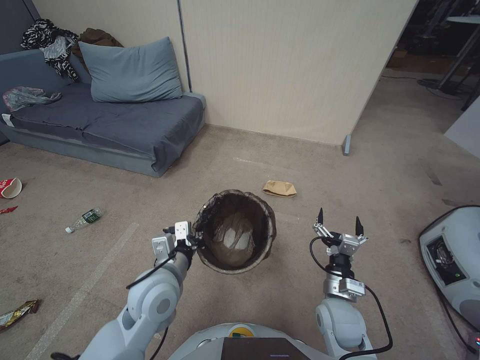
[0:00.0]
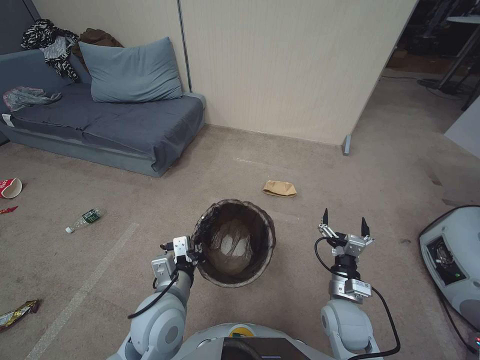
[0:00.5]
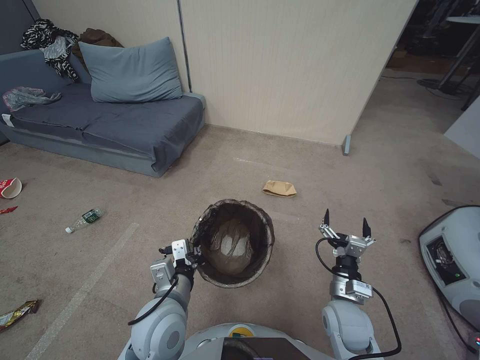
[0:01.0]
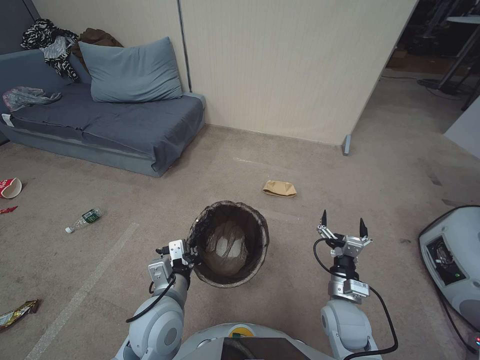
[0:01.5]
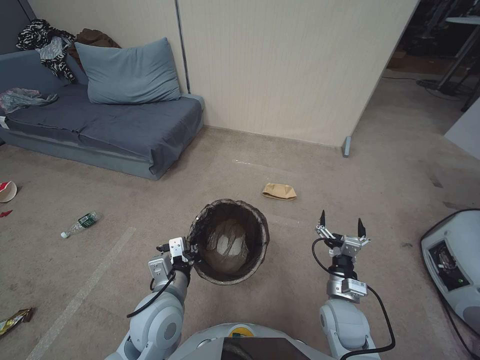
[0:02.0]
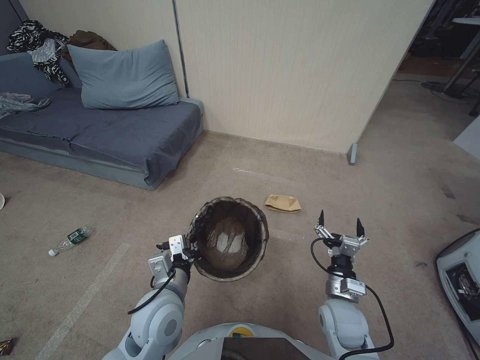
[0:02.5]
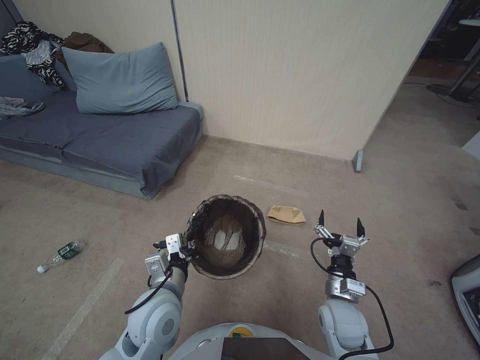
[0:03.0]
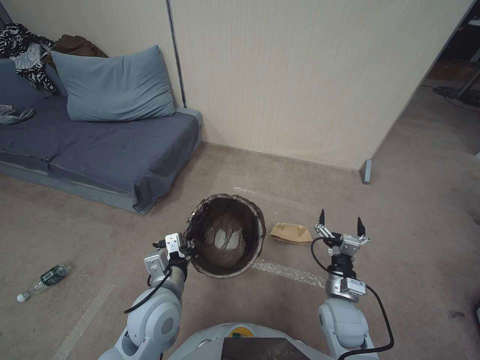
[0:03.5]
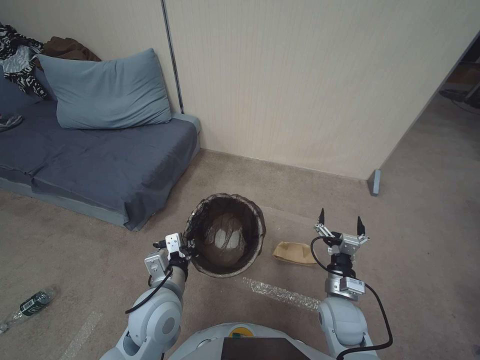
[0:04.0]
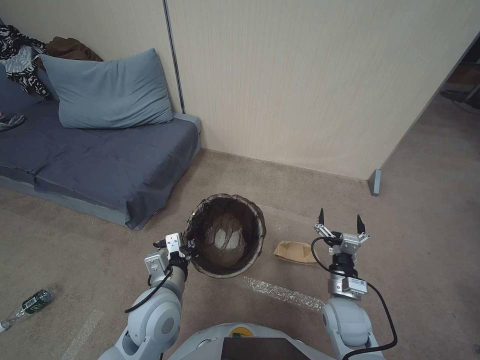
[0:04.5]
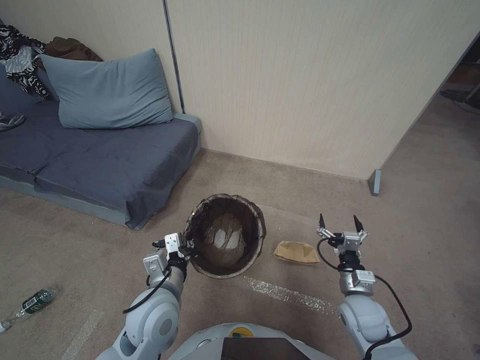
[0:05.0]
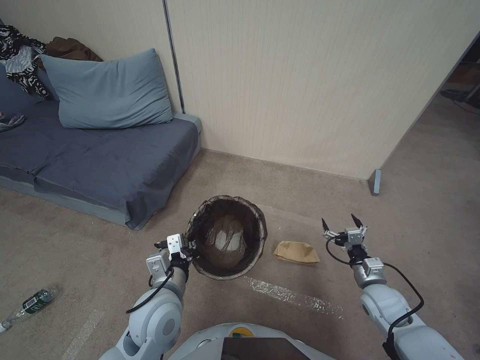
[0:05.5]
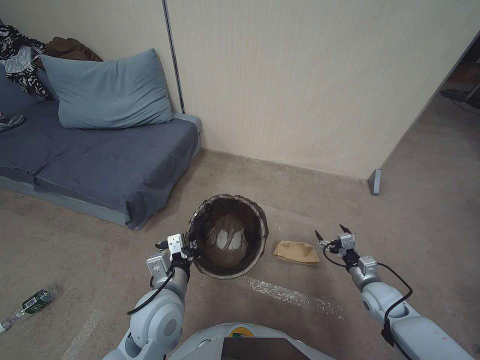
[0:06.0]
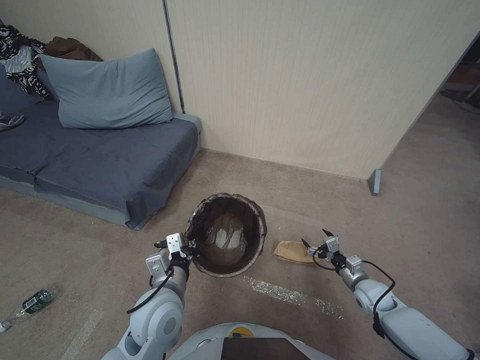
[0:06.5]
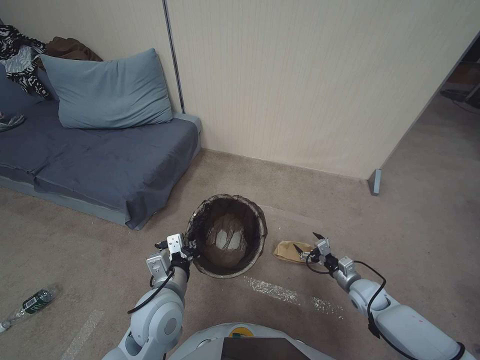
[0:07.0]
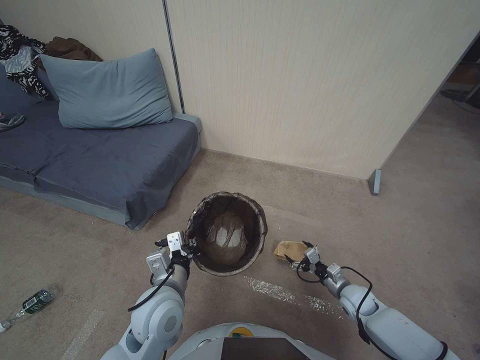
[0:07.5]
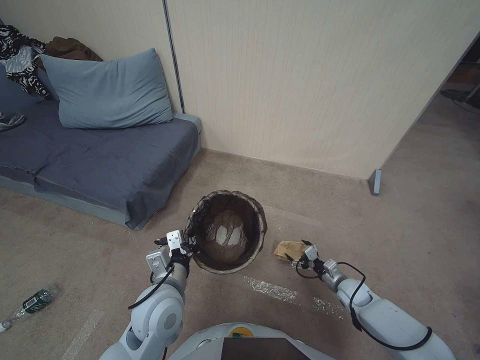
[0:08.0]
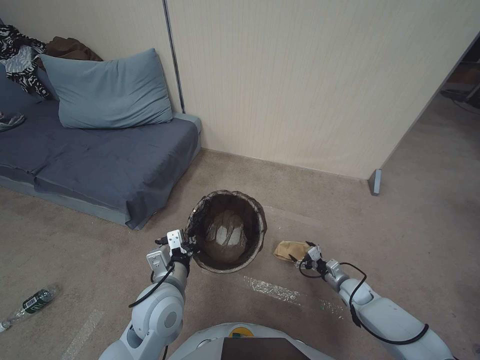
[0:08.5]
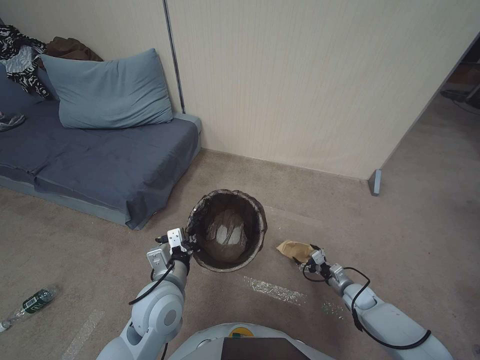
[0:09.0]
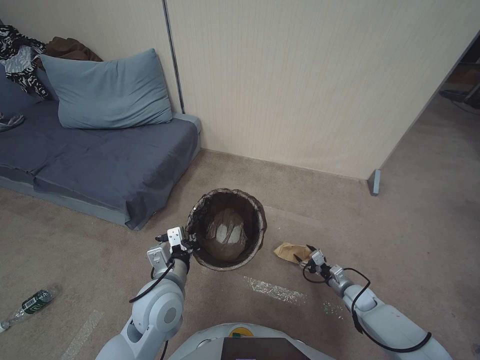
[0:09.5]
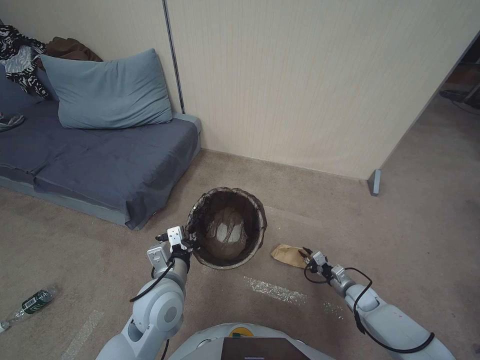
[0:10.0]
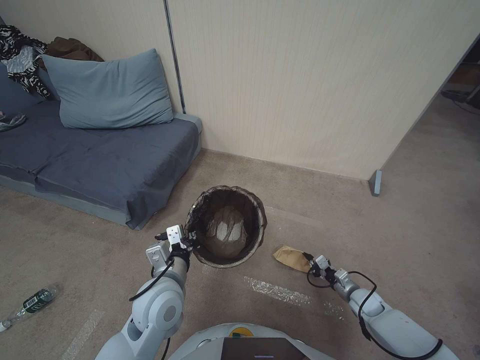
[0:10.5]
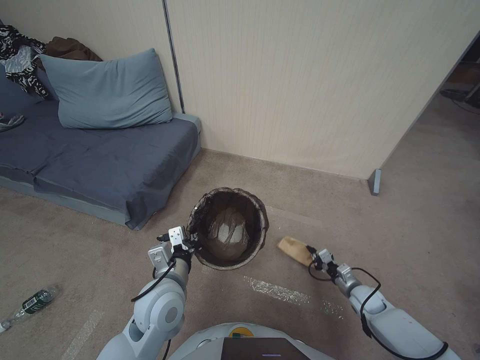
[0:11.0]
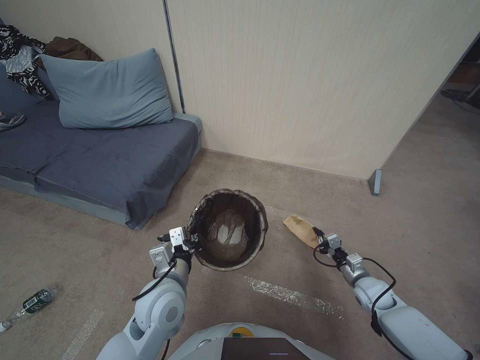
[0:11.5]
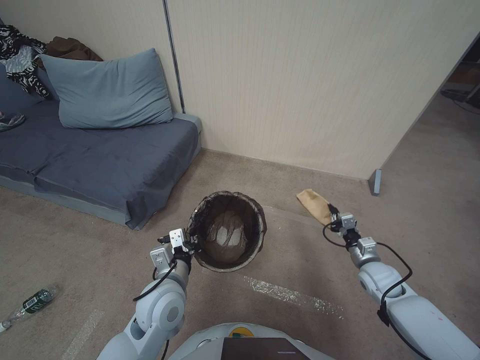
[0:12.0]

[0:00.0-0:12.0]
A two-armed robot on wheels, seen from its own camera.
Task of the whole recording: Pick up the trash bin, then pick up the garbage from the floor and place it into the trash bin.
0:00.0 to 0:02.0: The left gripper is displaced backward by about 10 cm.
0:04.0 to 0:06.0: The right gripper travels to the right by some 15 cm.
0:06.0 to 0:08.0: The right gripper goes some 10 cm downward.
0:08.0 to 0:10.0: The right gripper changes place by some 5 cm, and closes its fingers.
0:10.0 to 0:12.0: The right gripper shifts approximately 15 cm upward.

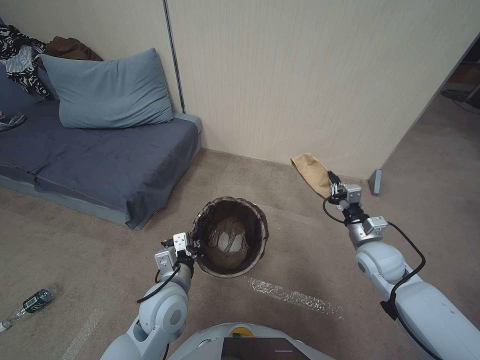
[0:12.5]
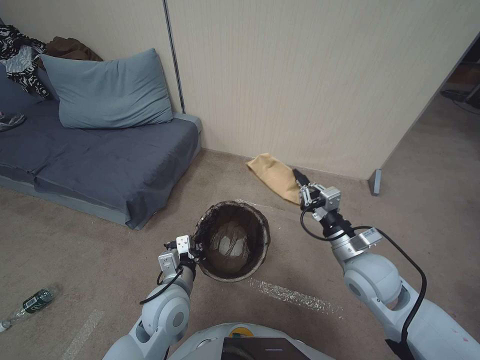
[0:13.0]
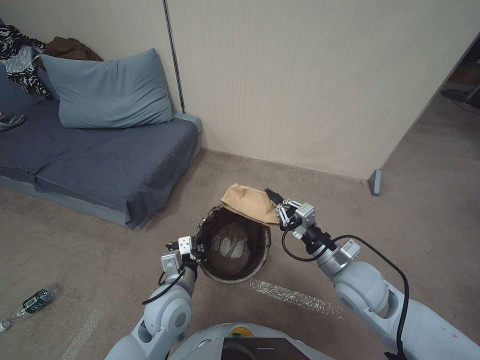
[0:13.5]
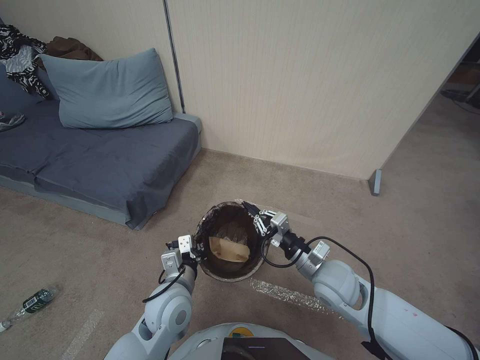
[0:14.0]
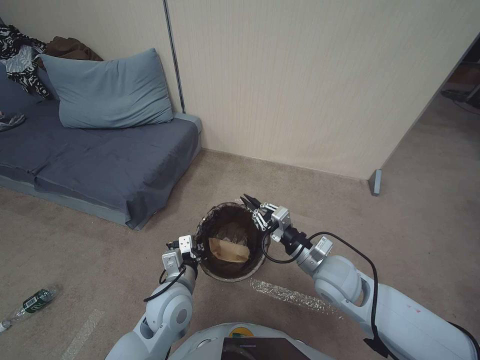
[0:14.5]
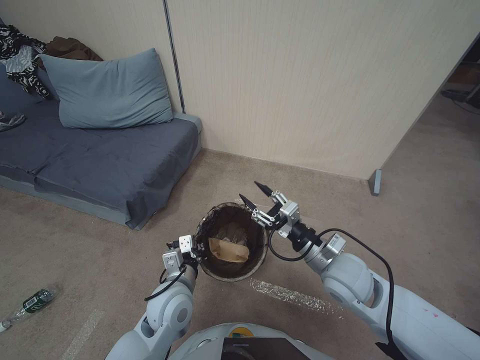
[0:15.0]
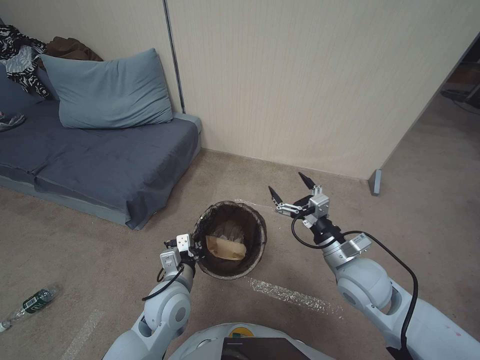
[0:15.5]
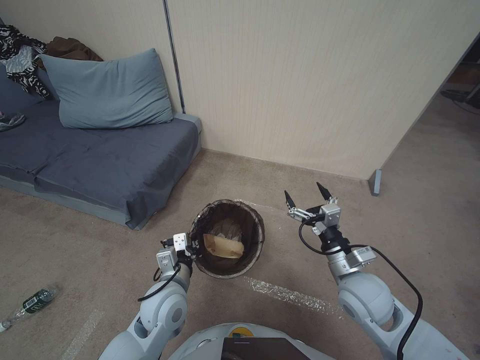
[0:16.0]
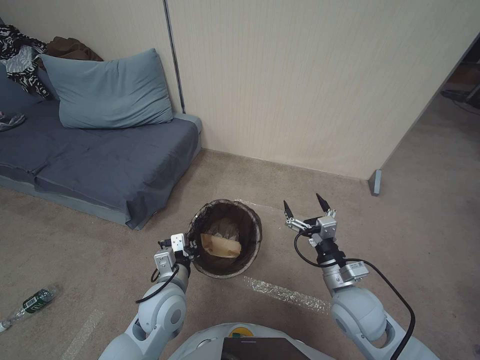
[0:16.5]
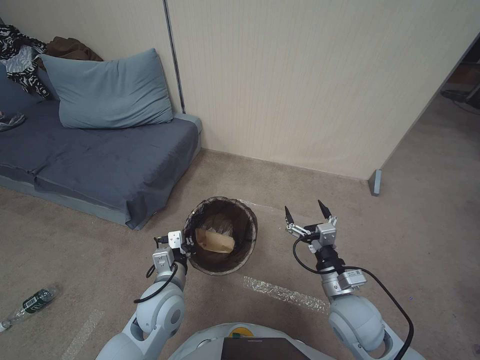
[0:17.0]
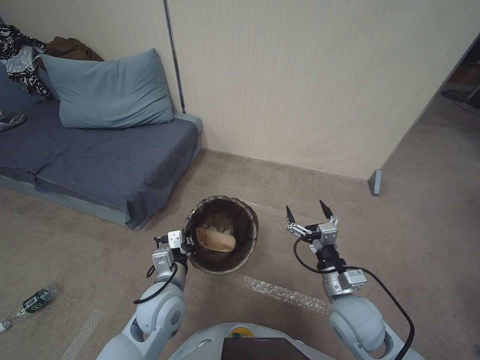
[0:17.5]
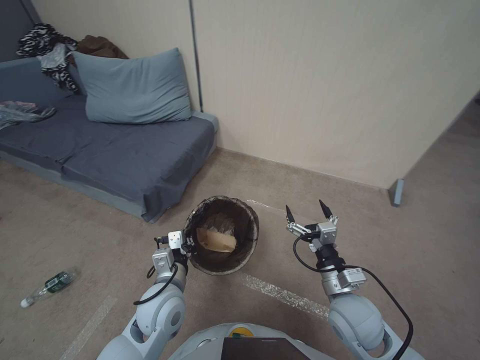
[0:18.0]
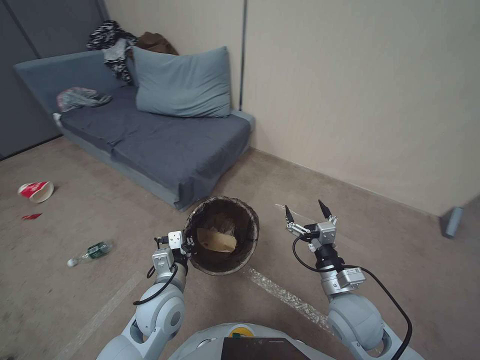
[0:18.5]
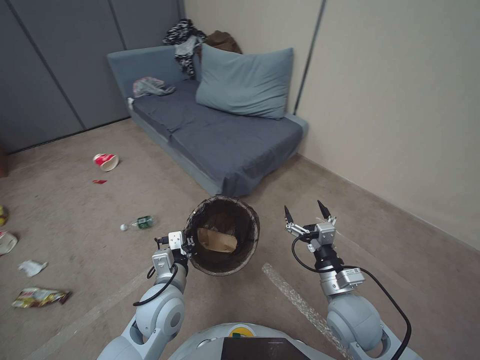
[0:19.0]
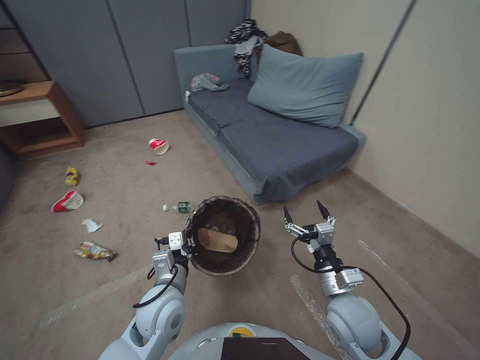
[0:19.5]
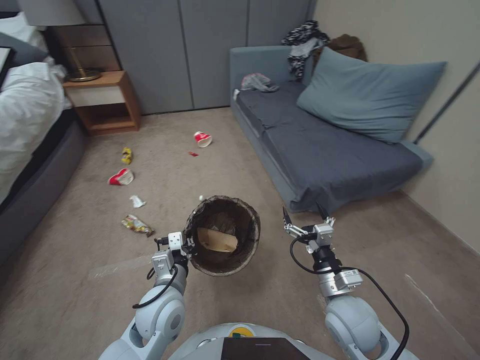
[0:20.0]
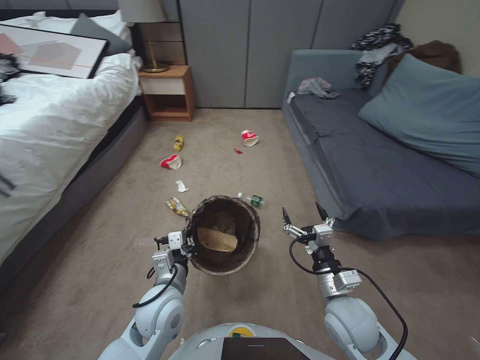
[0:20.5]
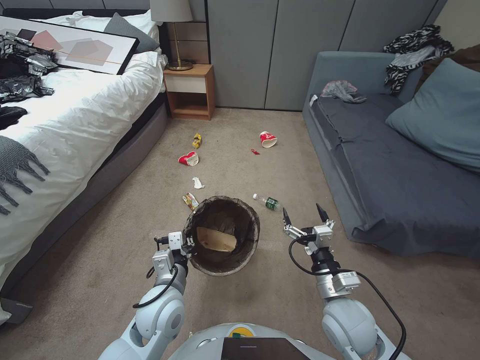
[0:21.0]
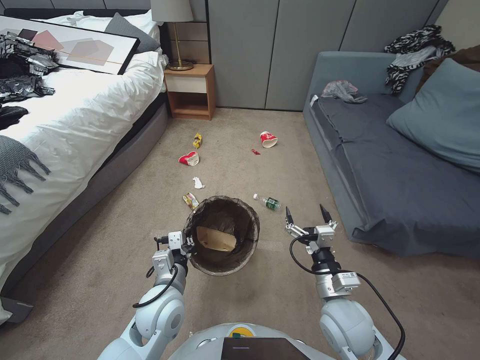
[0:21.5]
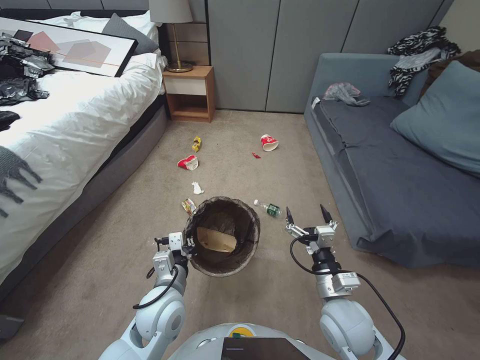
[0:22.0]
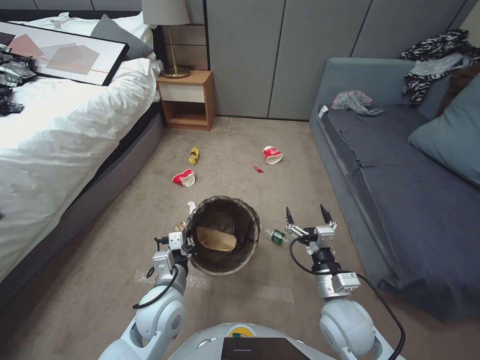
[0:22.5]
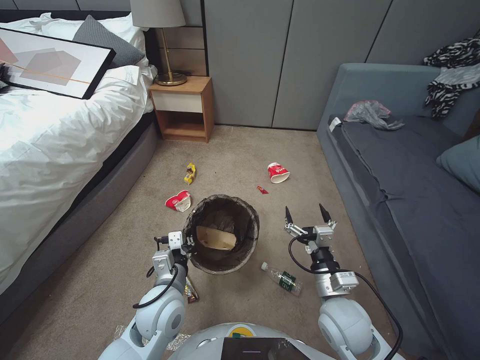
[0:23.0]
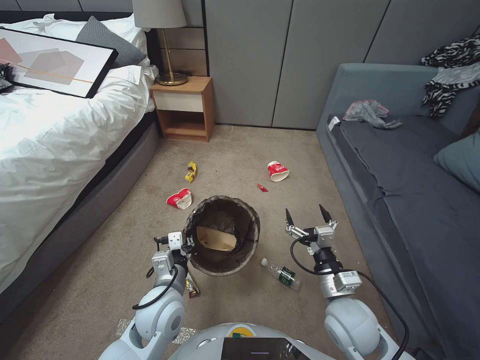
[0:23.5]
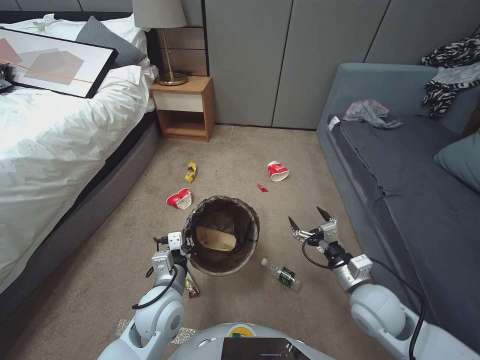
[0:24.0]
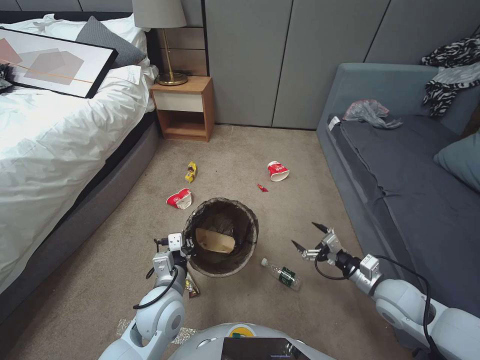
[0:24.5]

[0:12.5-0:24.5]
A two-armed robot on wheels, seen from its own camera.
Task of the whole recording: Pick up the trash bin, then pick up the garbage from the floor and place it into the trash bin.
0:12.5 to 0:14.5: The right gripper goes about 15 cm to the left.
0:14.5 to 0:16.5: The right gripper changes place by about 5 cm, and opens up.
0:22.5 to 0:24.5: The right gripper is displaced to the right by roughly 15 cm.

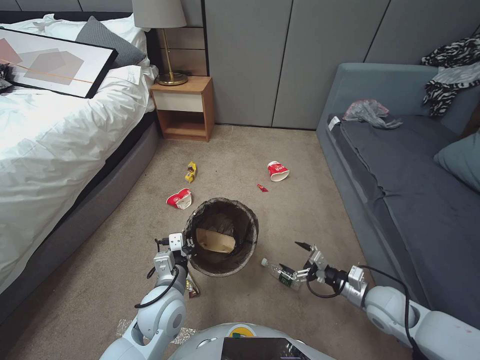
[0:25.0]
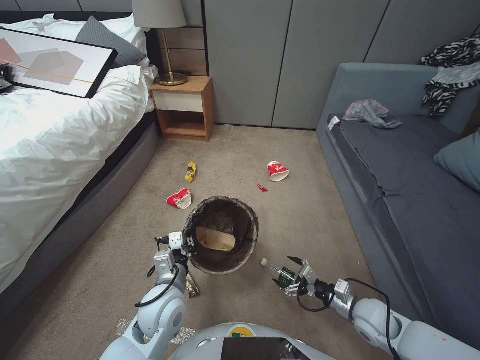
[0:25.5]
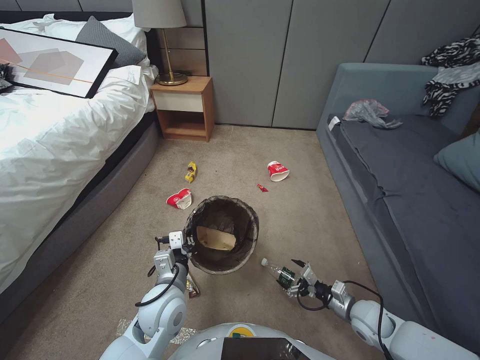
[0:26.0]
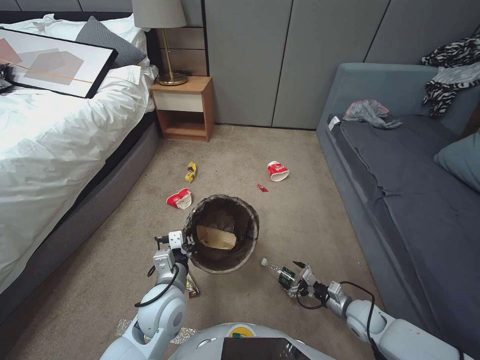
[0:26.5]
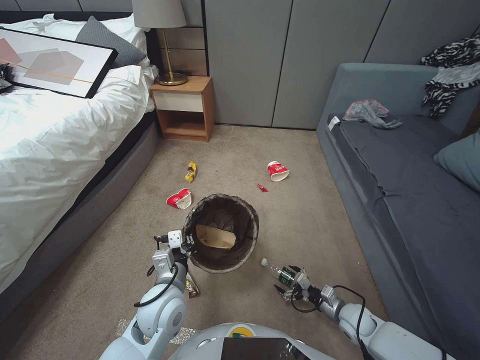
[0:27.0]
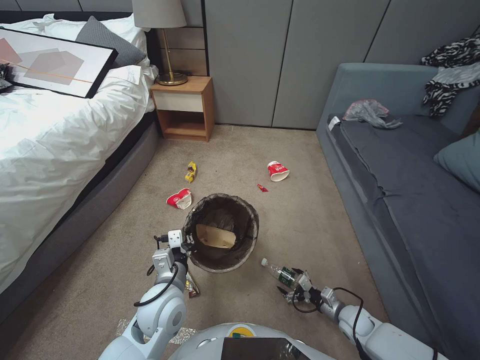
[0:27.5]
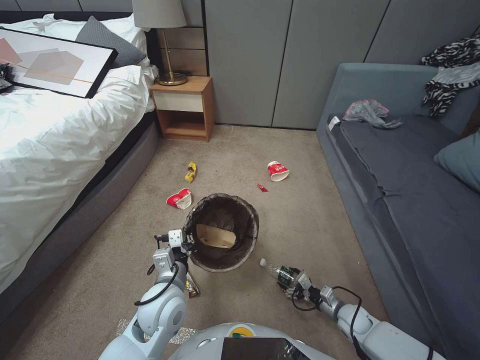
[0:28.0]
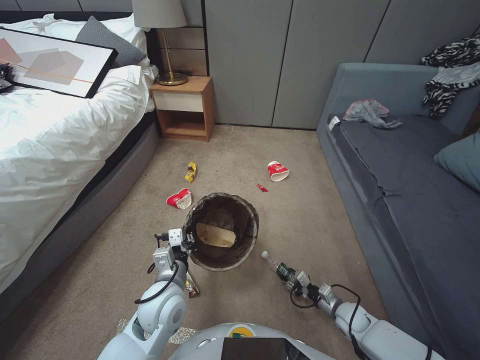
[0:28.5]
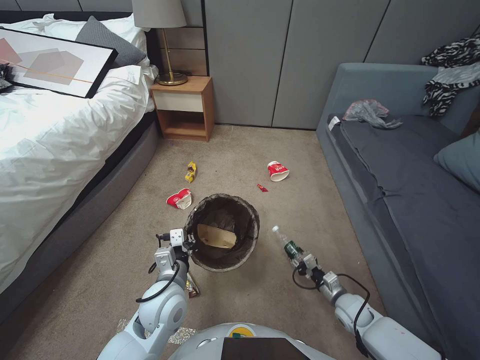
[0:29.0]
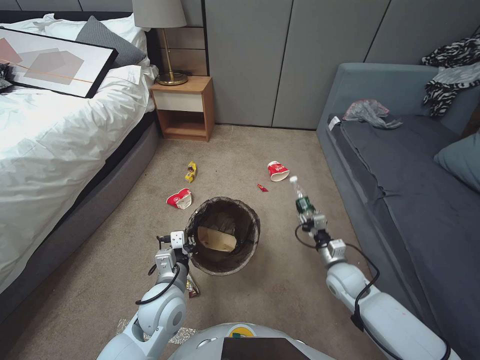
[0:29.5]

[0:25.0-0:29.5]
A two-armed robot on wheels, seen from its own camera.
Task of the whole recording: Pick up the trash bin, then pick up the garbage from the floor and place it into the trash bin.
0:25.0 to 0:27.0: The right gripper moves downward, approximately 15 cm.
0:27.0 to 0:29.5: The right gripper goes approximately 10 cm upward and forward, and closes up.
